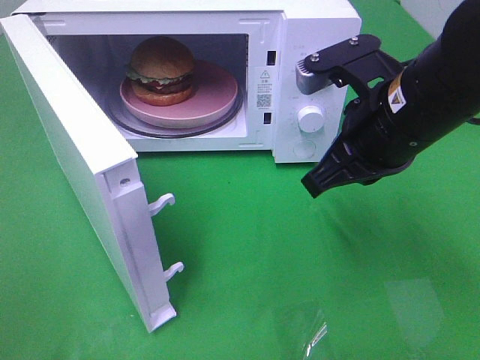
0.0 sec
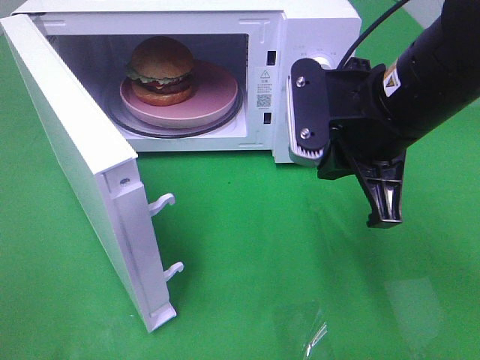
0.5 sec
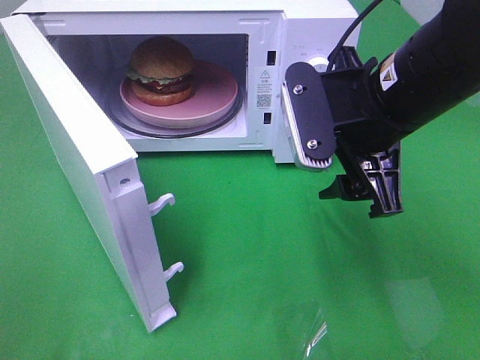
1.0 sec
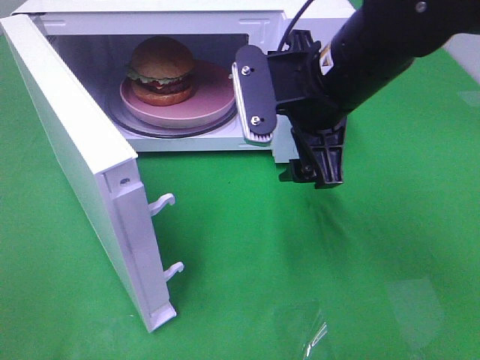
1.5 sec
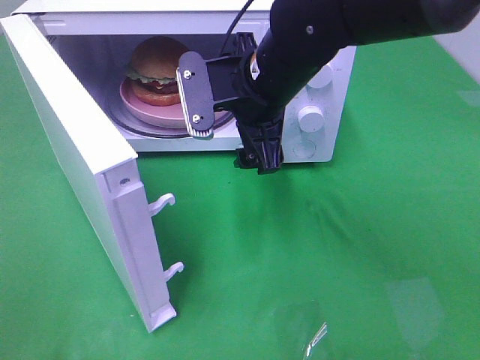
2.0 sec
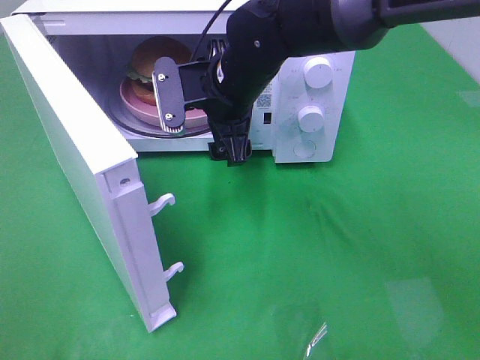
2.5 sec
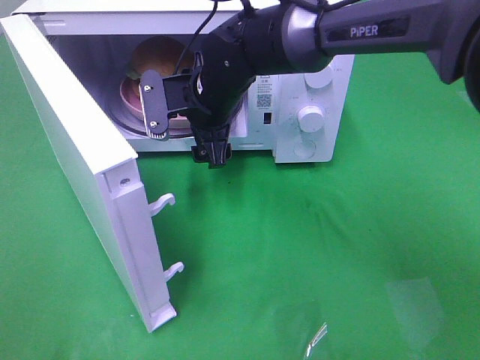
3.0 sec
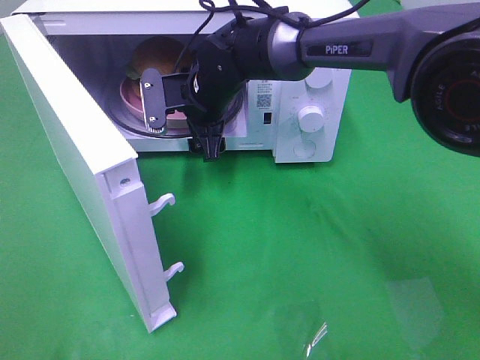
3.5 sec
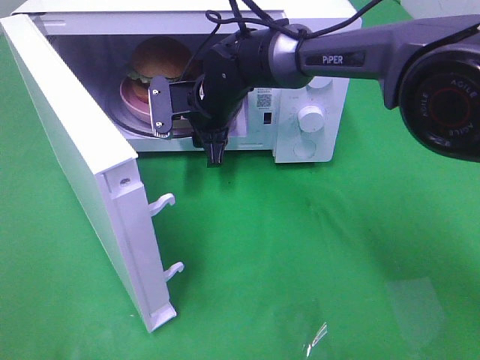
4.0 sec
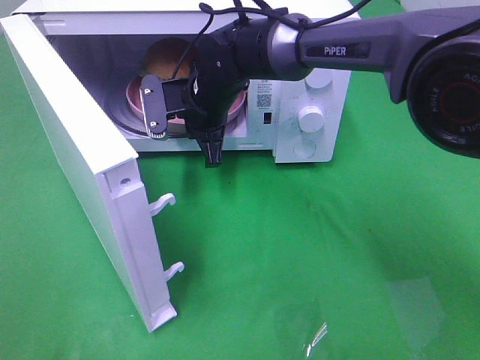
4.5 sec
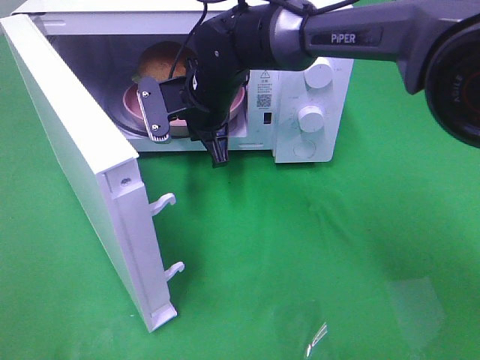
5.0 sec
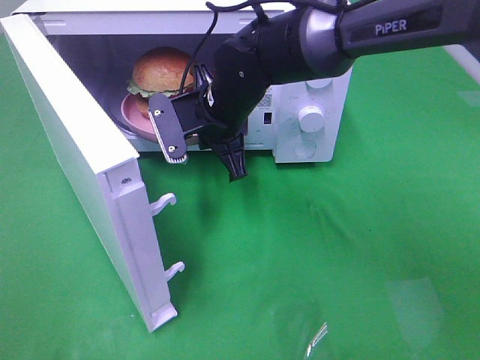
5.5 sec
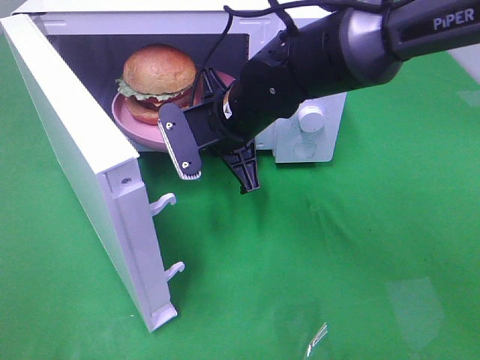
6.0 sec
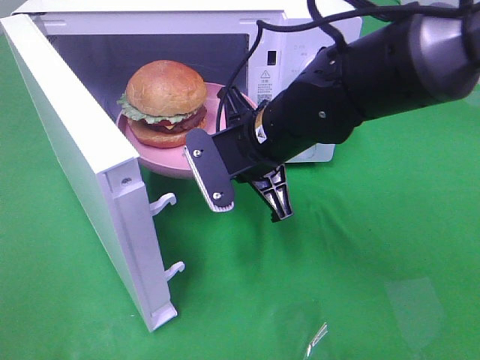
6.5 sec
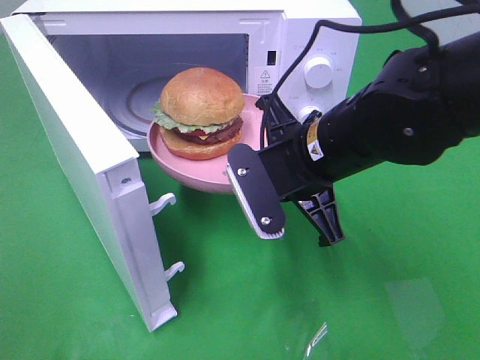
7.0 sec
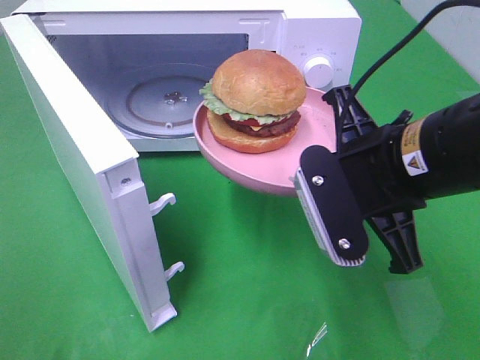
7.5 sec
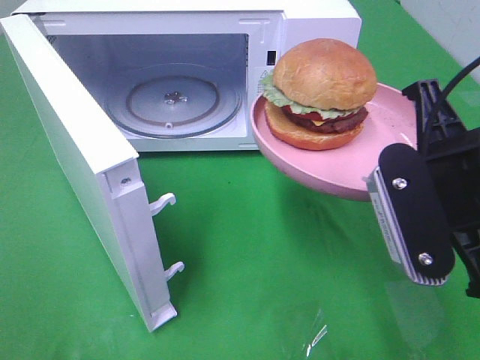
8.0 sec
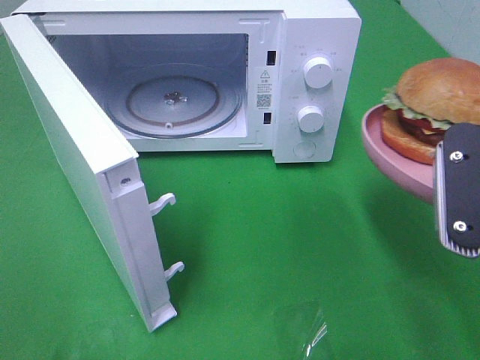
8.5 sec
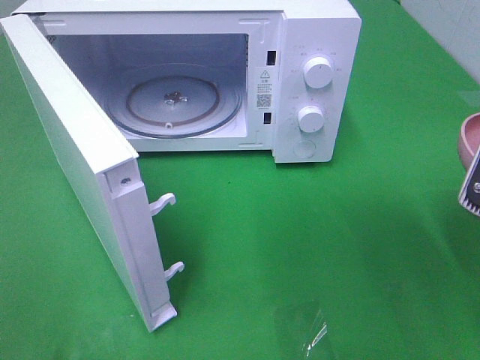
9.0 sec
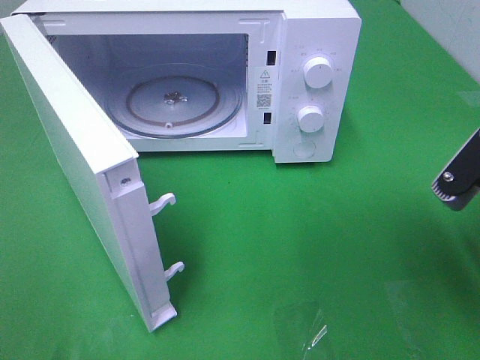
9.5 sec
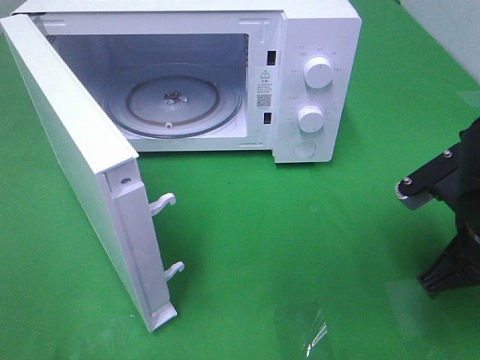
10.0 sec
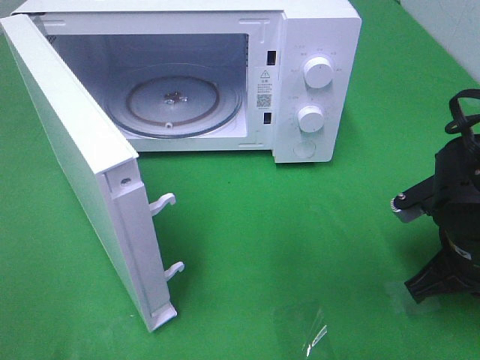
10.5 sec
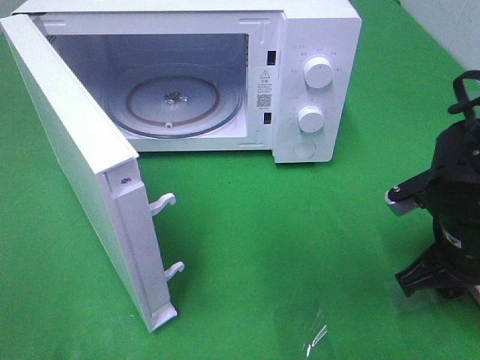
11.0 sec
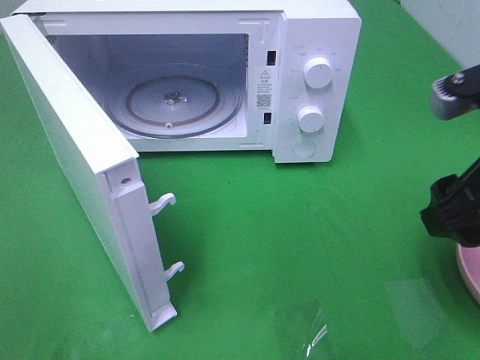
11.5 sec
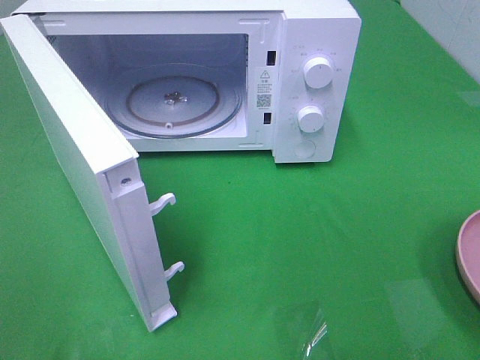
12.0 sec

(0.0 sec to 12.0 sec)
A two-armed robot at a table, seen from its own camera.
Task of the whole recording: Heat the burger.
Step, 0.0 sec - 4.0 sec: Right hand: grab the plate with the hamburger.
Step, 4.5 sec - 10.5 sec: Right hand: place the plate on the table.
0.0 sec - 2.0 sec: The right gripper heads to the left and forward, covering approximately 15 cm, and opens.
2.0 sec - 4.0 sec: The right gripper heads forward, downward and to the left, covering roughly 15 cm, and closes.
4.0 sec - 6.0 sec: The right gripper heads backward, covering about 10 cm, and closes its fingers.
6.0 sec - 8.0 sec: The right gripper moves backward, to the right and upward, about 25 cm.
8.0 sec - 10.0 sec: The right gripper goes approximately 10 cm downward.
10.0 sec - 12.0 sec: The right gripper heads upward and backward, covering approximately 20 cm, and opens.

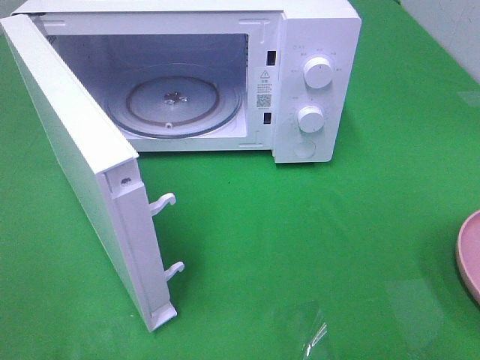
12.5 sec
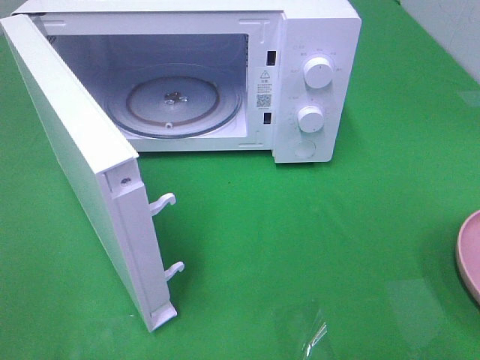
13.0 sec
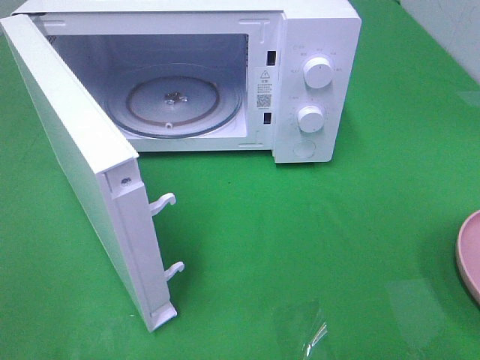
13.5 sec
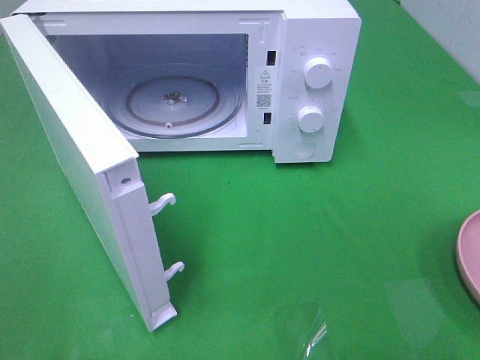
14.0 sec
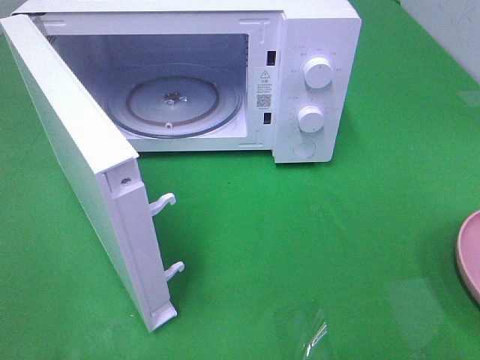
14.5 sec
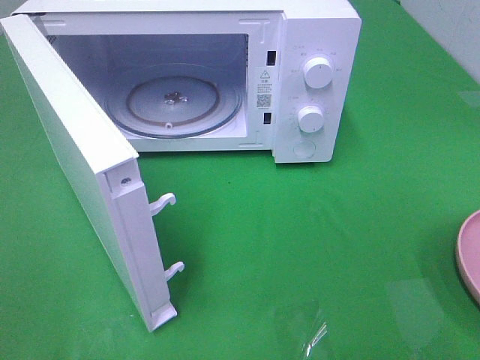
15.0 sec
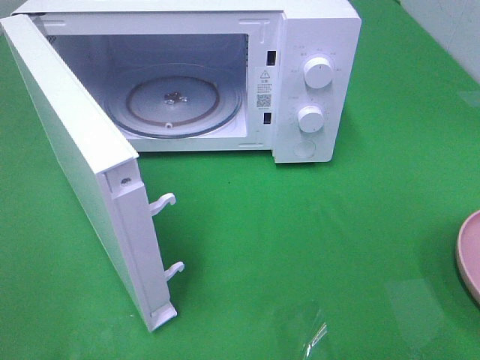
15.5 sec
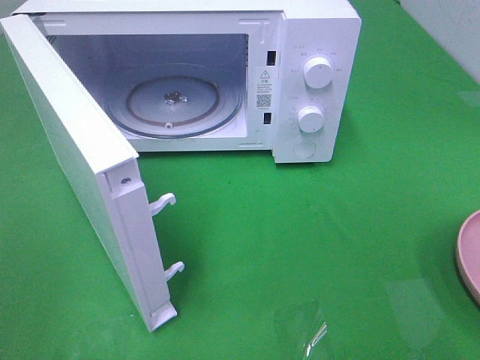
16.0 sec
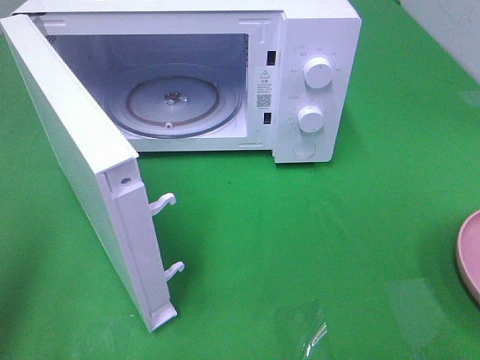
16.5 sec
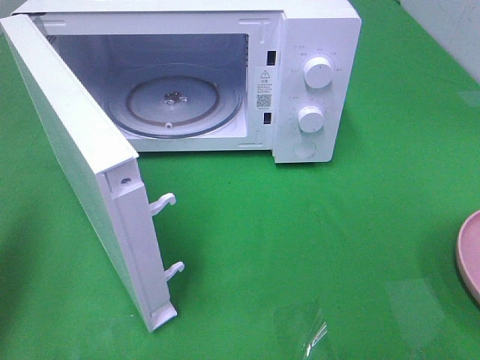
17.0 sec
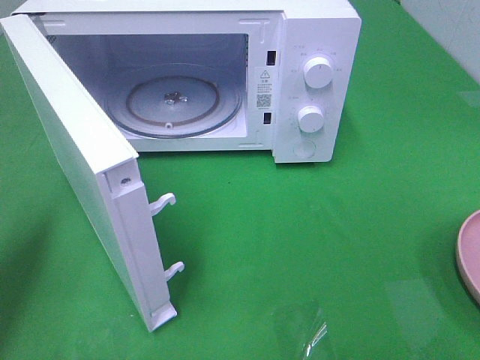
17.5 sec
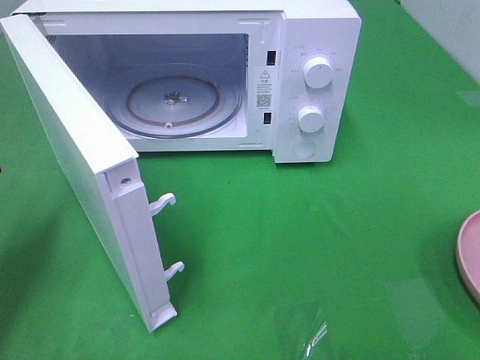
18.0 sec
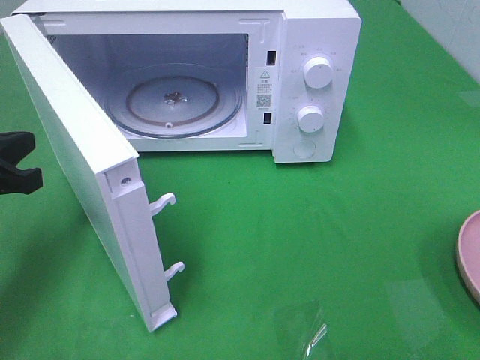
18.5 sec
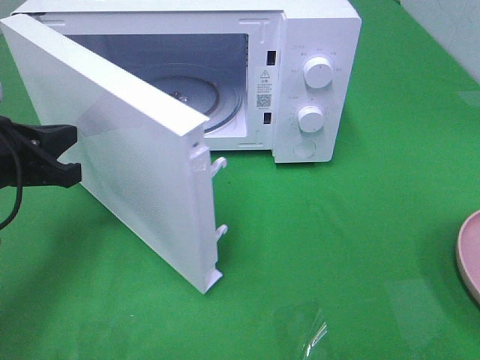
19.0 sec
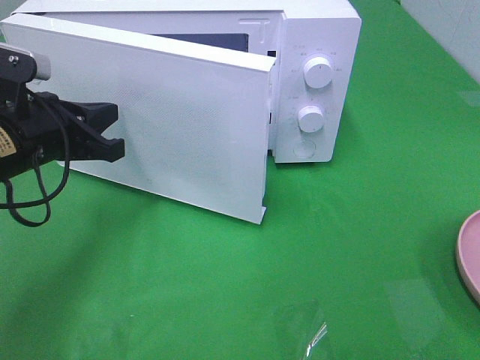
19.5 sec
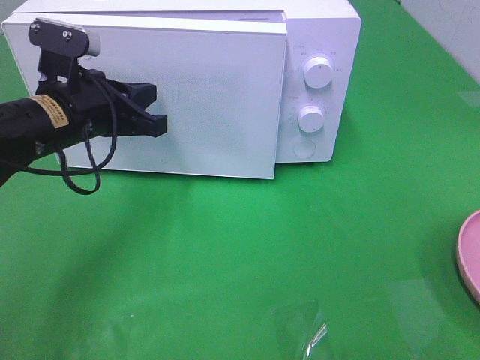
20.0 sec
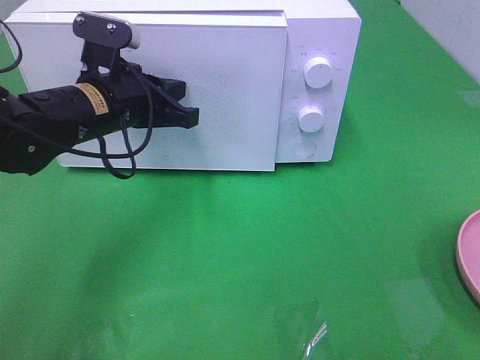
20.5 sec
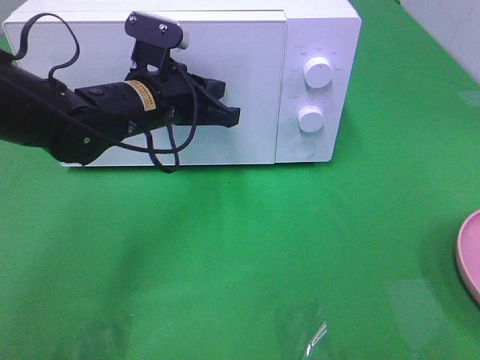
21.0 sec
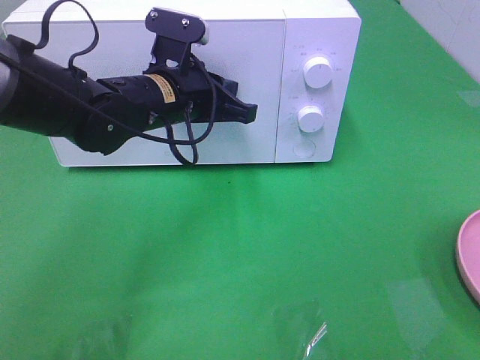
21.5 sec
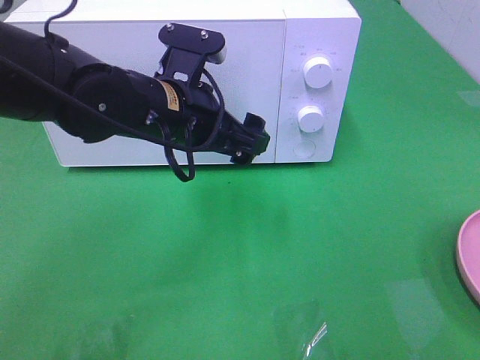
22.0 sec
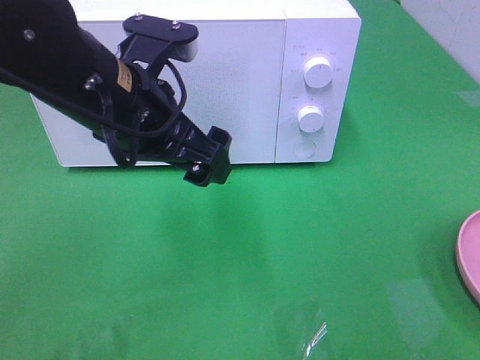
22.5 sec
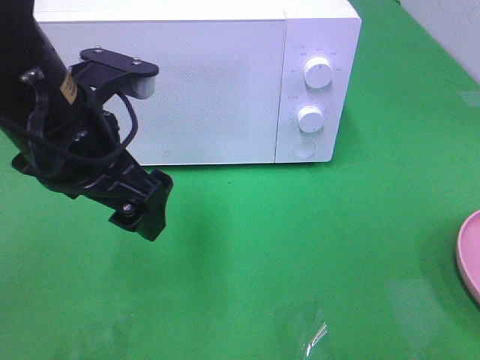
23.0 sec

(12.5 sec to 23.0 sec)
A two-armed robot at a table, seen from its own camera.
Task of the whole recording: Heat the burger.
Step, 12.5 sec - 21.5 sec: Left hand: close the microwave door.
14.5 sec - 16.5 sec: The left gripper moves forward, some 10 cm, and closes up.
16.5 sec - 19.0 sec: The left gripper moves downward, forward and to the right, approximately 25 cm.
19.0 sec - 21.0 sec: The left gripper goes roughly 20 cm to the right and forward.
21.0 sec - 23.0 sec: The left gripper is displaced backward and upward by approximately 15 cm, and opens.

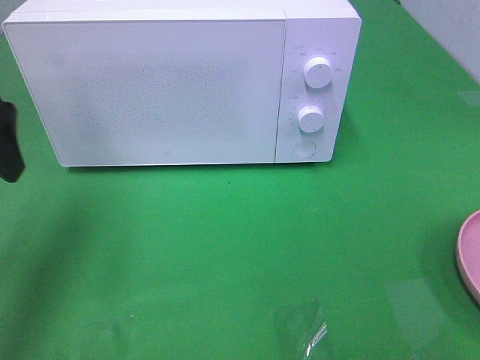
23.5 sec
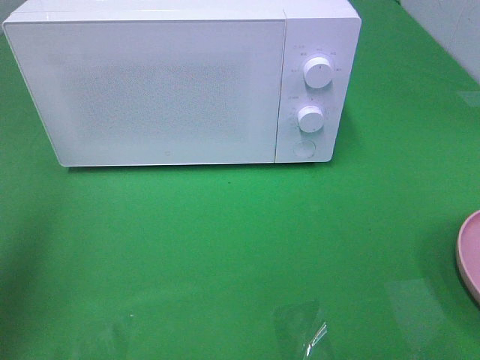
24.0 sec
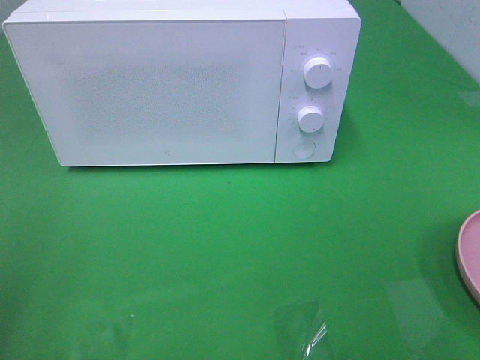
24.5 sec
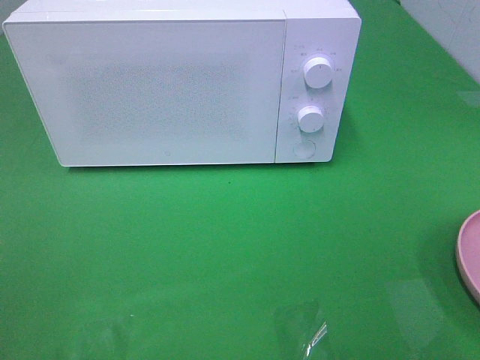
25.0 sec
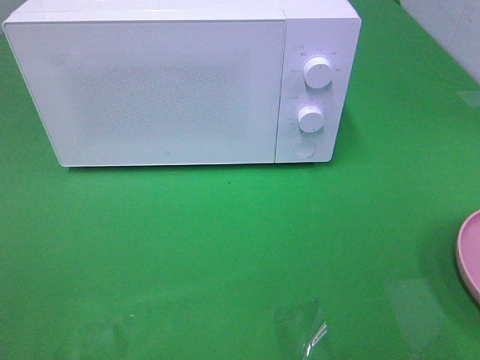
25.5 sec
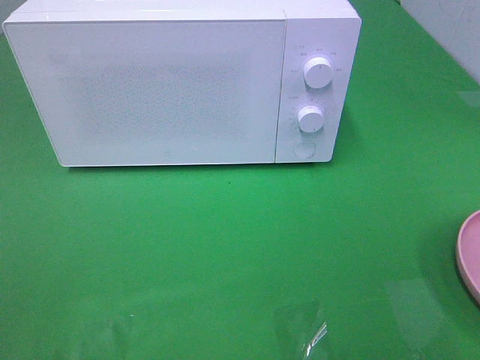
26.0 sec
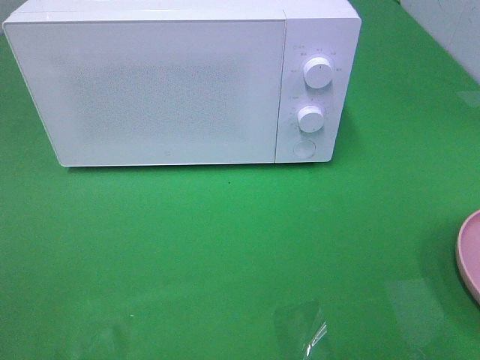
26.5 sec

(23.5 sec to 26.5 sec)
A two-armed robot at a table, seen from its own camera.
Task of the whole recording: Heat the burger.
23.5 sec - 25.0 sec: The left gripper is displaced backward by roughly 25 cm.
